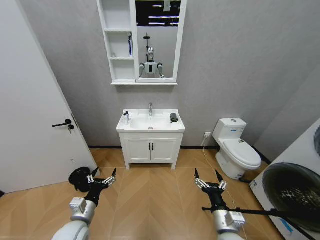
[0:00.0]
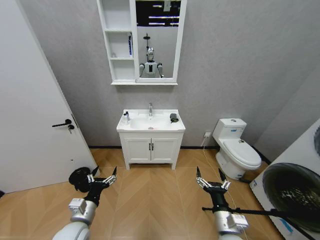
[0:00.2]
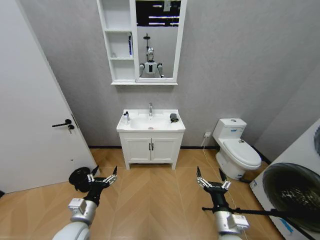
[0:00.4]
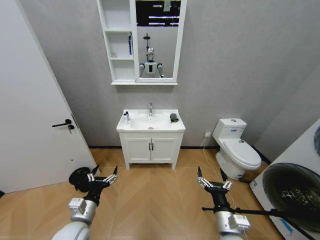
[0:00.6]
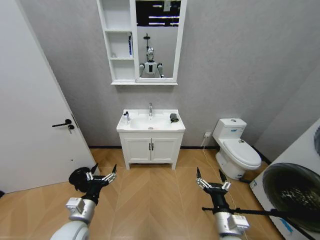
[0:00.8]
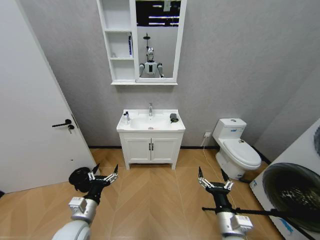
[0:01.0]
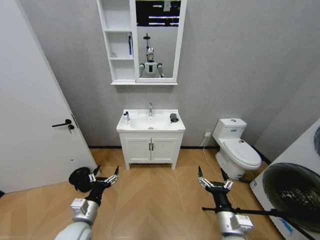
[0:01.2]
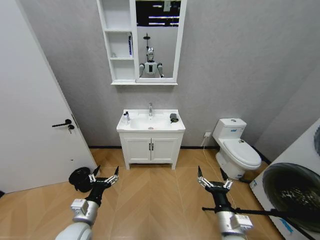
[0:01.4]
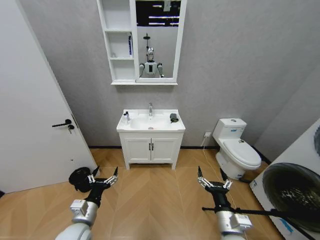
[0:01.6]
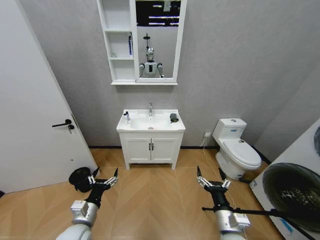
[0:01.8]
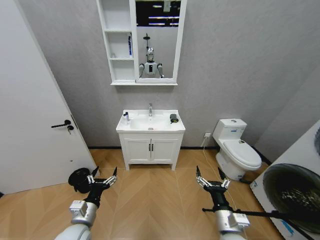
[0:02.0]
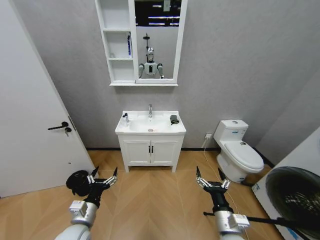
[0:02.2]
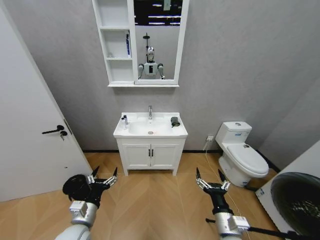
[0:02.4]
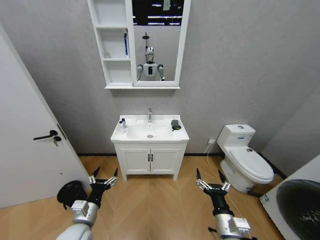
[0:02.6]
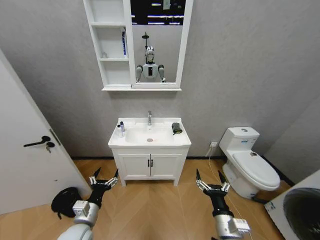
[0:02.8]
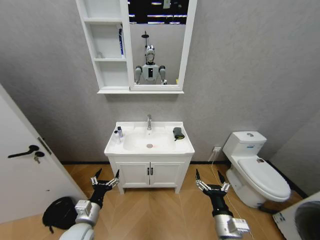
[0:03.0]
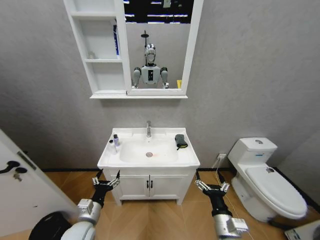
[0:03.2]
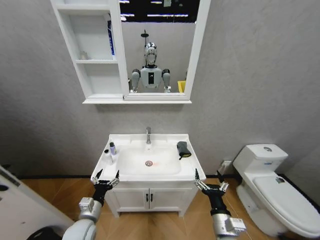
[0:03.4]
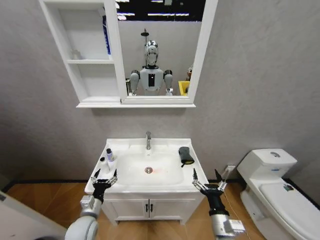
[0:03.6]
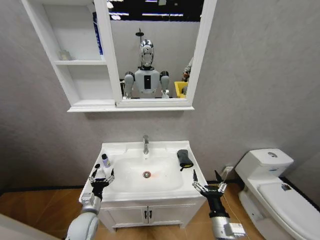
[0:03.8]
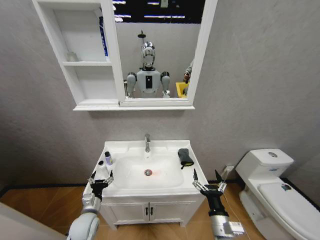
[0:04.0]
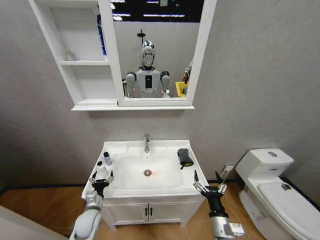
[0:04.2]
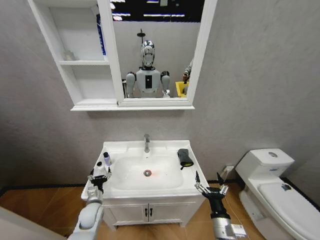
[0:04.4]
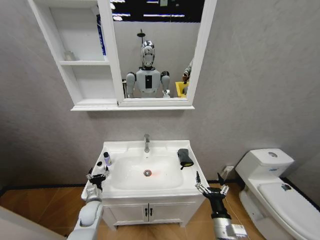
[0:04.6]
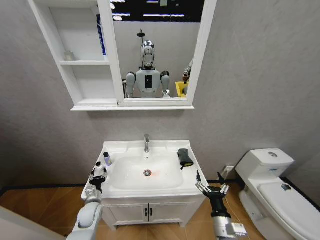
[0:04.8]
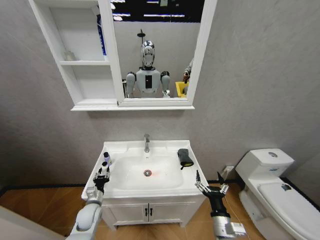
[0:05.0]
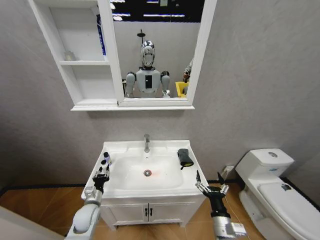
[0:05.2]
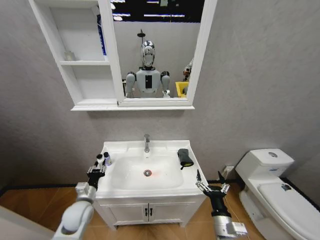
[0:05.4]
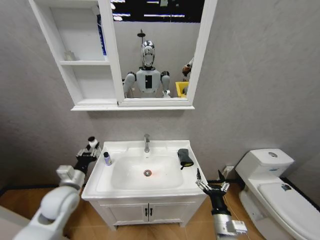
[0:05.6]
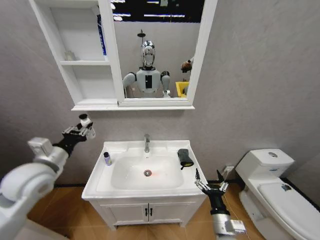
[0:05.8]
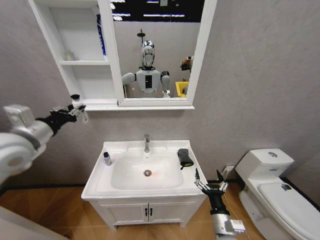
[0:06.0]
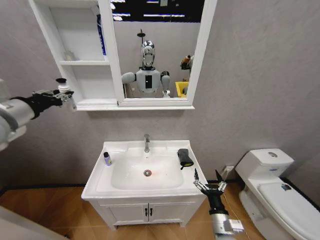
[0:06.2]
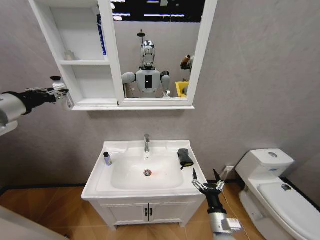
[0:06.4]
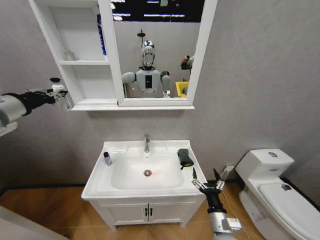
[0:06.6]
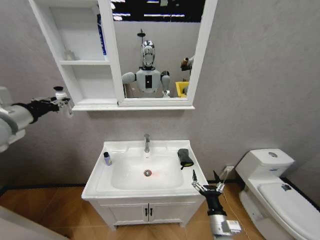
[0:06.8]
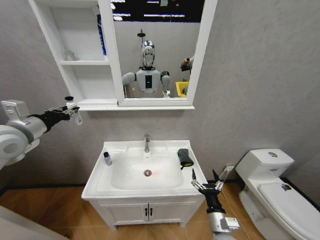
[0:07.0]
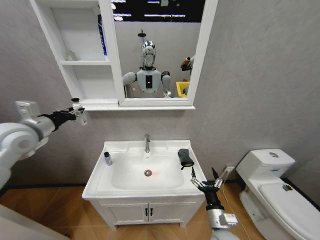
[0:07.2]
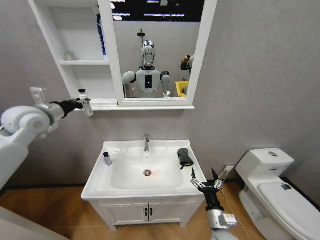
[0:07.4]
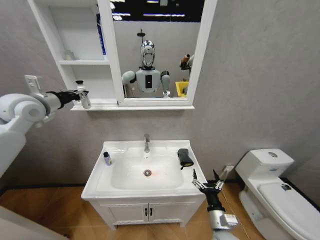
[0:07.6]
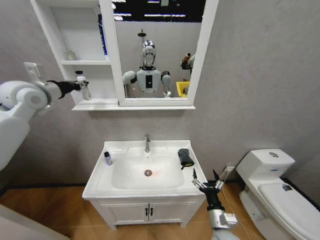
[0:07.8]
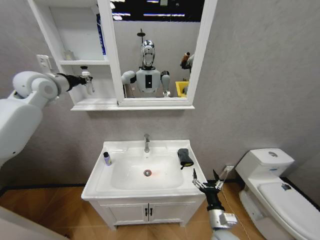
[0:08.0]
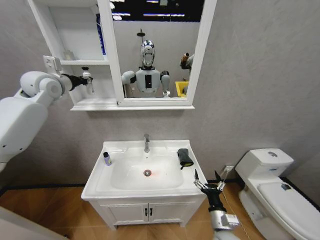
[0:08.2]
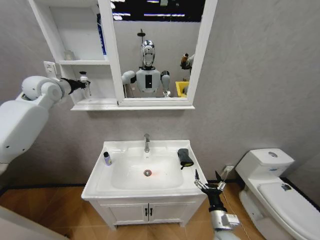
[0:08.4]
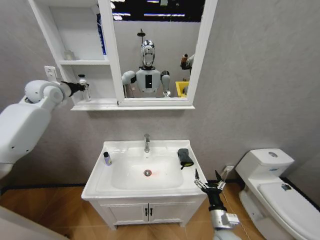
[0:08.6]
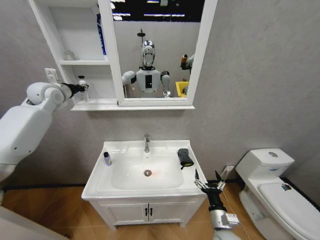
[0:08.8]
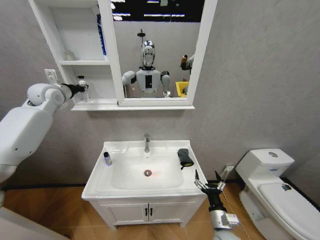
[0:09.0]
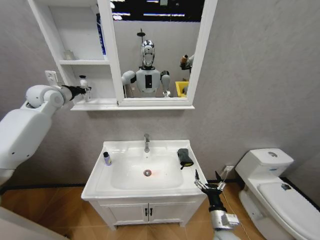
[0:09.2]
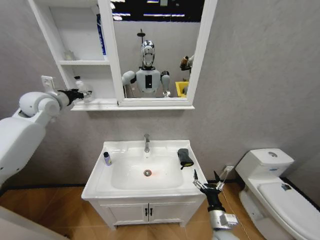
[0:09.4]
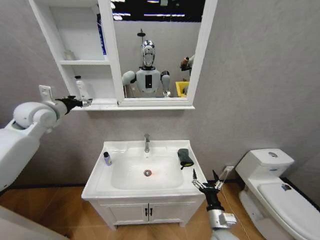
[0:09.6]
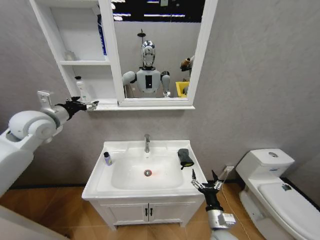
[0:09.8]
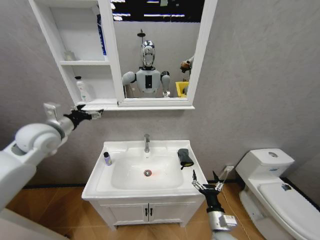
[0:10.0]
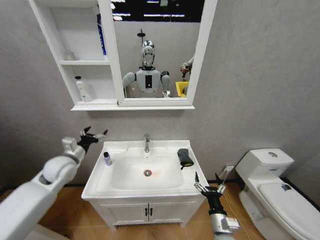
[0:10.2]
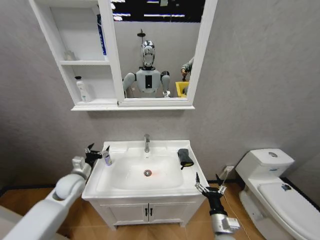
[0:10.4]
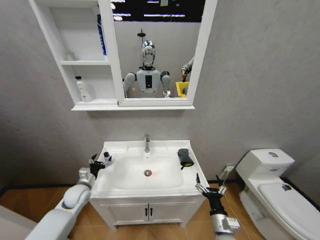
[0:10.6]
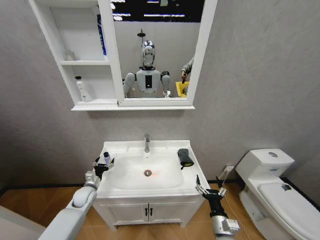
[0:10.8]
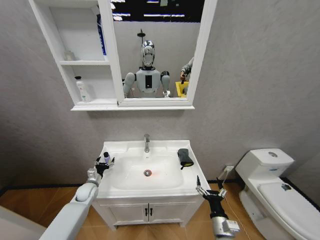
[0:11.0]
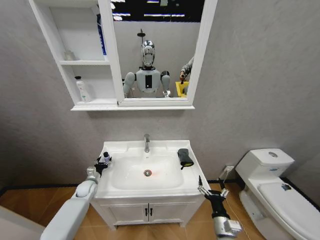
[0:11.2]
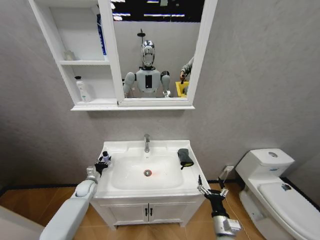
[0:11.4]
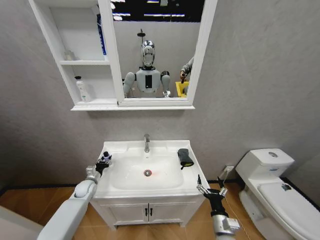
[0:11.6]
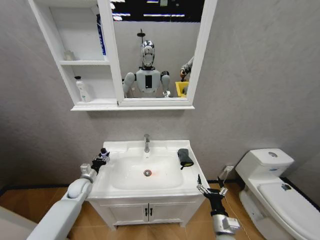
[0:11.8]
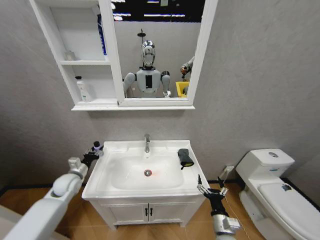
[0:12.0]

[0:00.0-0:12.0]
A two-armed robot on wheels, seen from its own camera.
Task of the whole recording: Move facial cleanser and shampoo from washbasin to cabinet, then wipe washbasin with towel.
0:03.0 to 0:04.4: The left gripper heads forward and downward, covering roughly 15 cm.
0:04.4 to 0:06.0: The left gripper moves upward, approximately 40 cm, and closes its fingers.
0:06.0 to 0:07.6: The left gripper moves forward and upward, roughly 15 cm.
0:07.6 to 0:09.0: The left gripper heads forward, covering about 10 cm.
0:09.0 to 0:10.4: The left gripper travels downward and backward by some 35 cm, and opens.
0:10.4 to 0:12.0: The left gripper reaches some 15 cm downward, then returns, and closes its fingers.

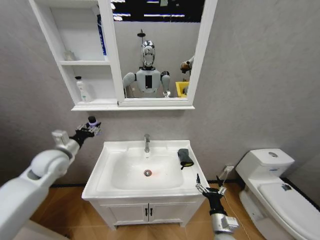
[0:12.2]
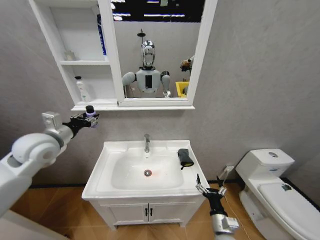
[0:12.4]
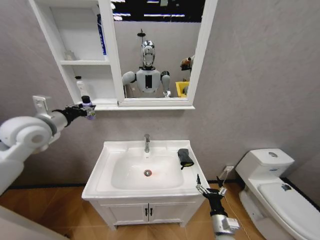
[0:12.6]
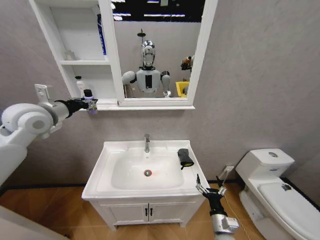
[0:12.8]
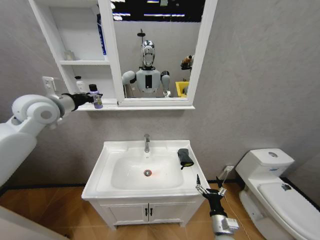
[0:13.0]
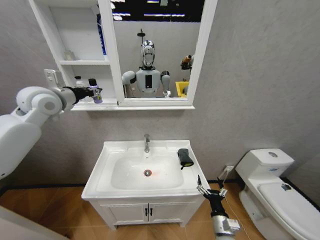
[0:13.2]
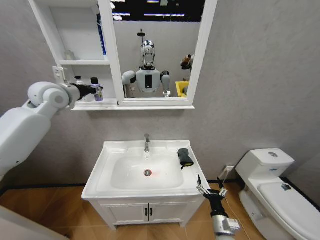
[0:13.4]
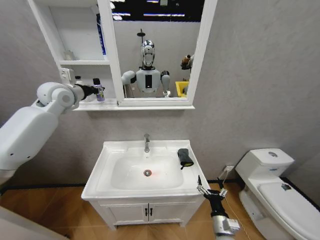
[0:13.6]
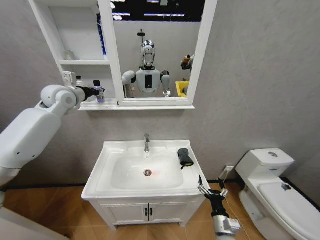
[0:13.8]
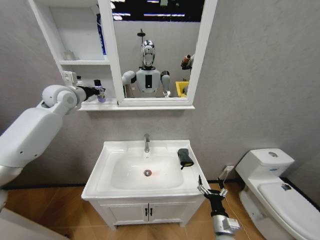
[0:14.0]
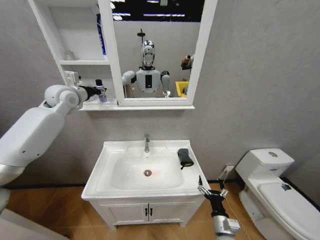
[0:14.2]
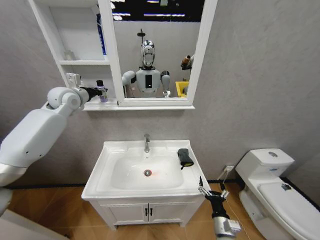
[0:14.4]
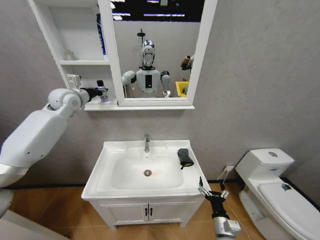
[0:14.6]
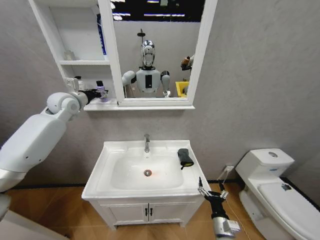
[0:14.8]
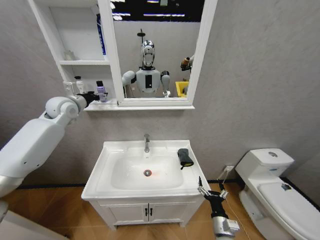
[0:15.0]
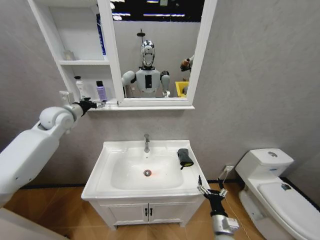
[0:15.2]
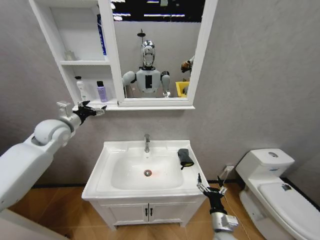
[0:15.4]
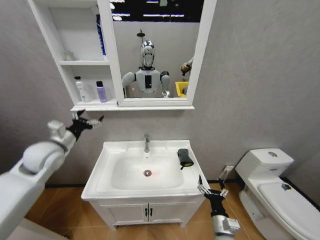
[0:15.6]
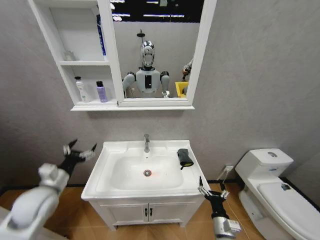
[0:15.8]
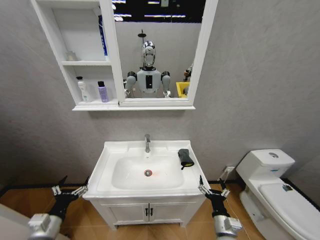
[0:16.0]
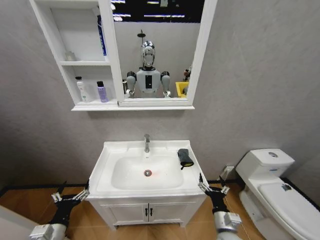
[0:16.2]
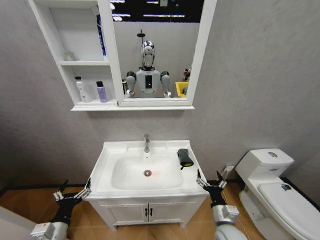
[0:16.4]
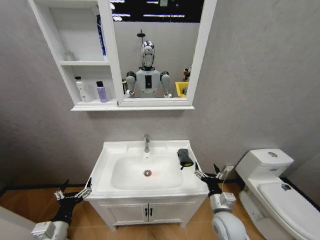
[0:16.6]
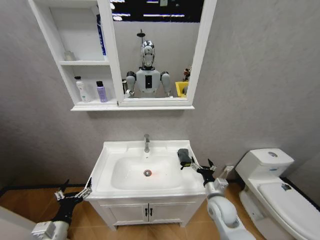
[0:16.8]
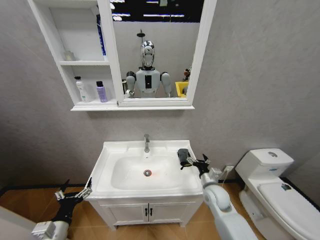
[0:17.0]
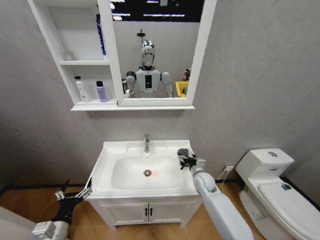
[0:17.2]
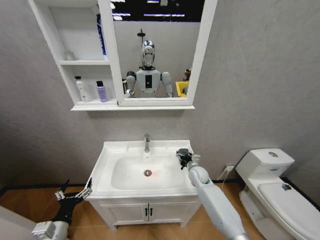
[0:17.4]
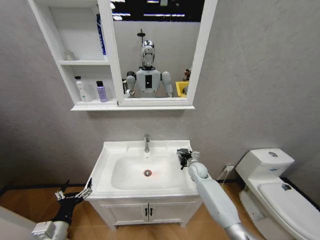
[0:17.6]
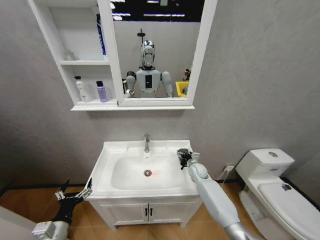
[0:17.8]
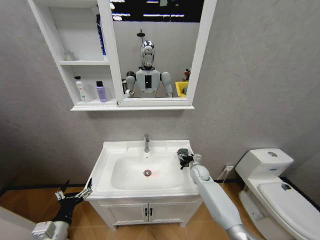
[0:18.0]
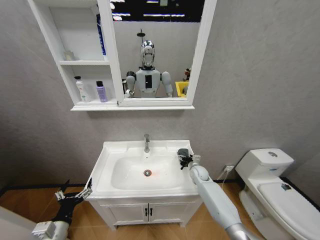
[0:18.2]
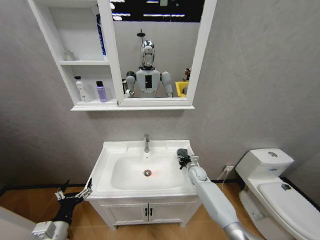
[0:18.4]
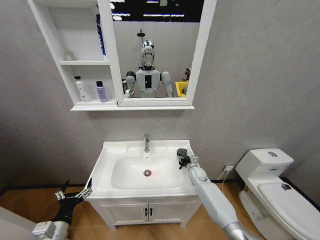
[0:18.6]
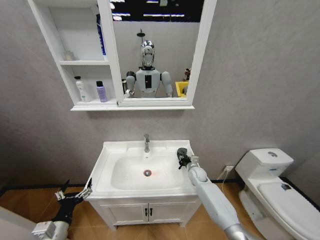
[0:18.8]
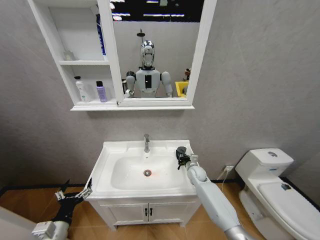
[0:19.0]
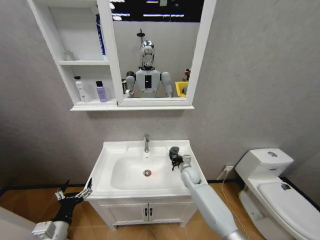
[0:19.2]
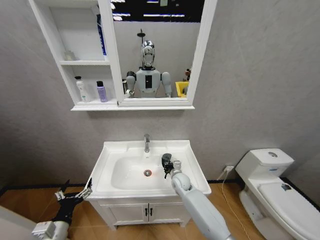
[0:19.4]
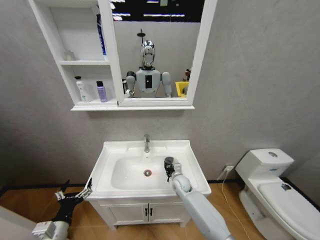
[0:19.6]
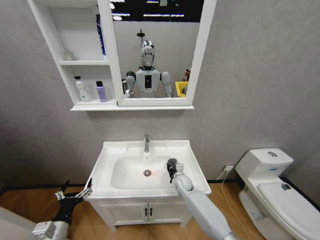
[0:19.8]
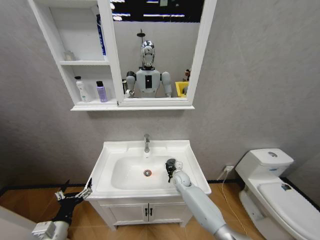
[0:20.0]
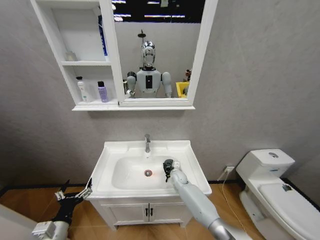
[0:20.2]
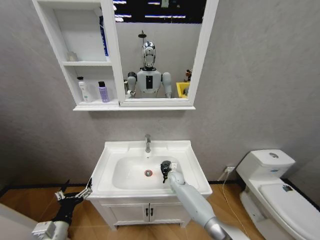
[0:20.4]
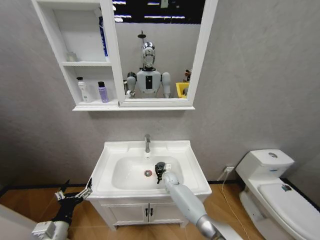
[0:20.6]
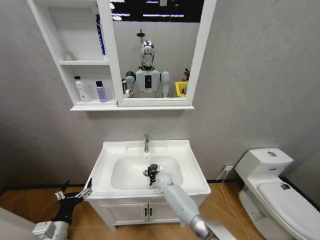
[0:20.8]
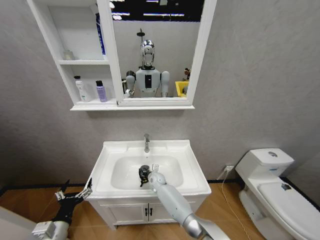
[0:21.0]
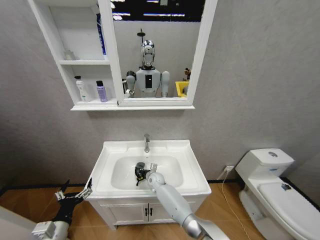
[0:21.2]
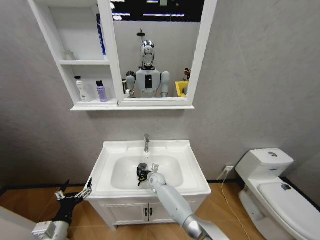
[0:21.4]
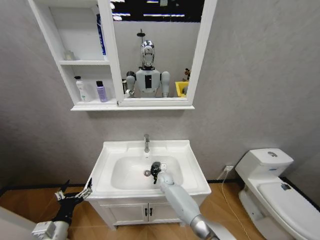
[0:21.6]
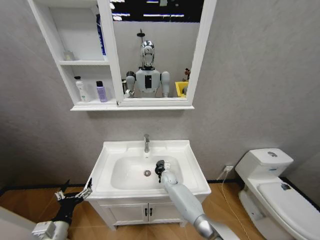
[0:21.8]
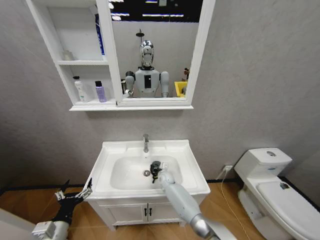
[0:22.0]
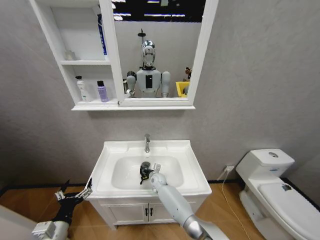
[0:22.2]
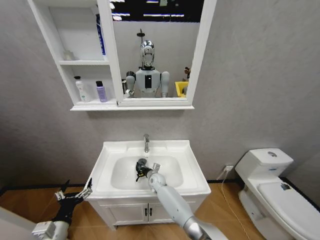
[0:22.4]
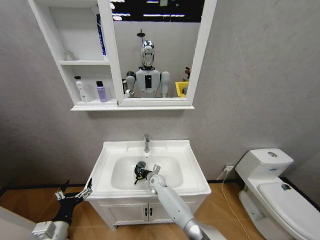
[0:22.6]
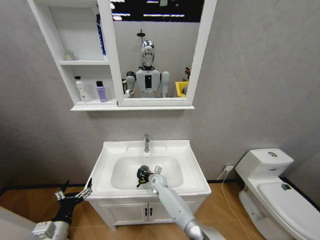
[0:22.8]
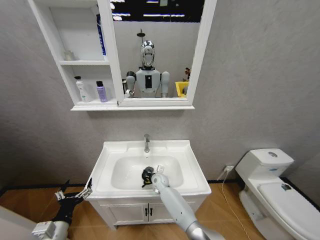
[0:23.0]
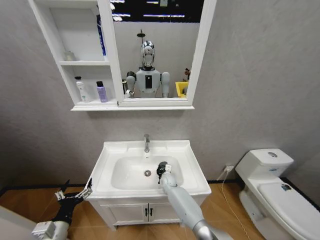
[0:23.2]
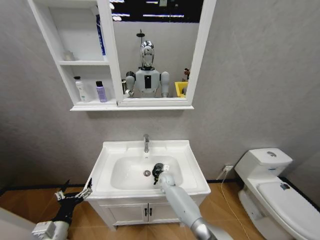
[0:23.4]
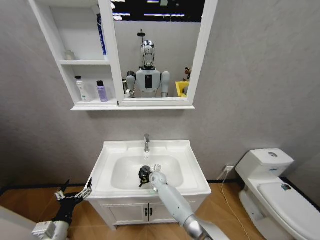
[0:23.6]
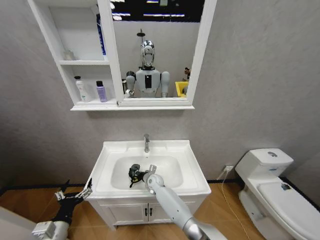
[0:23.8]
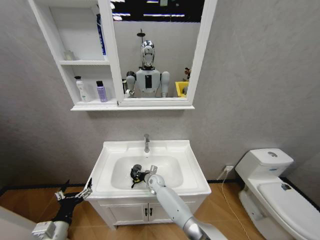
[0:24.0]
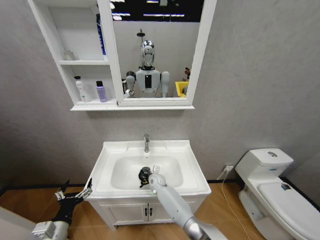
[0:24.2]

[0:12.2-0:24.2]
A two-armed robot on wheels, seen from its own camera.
Task of the whole recording: Move facial cleanser and shampoo from washbasin to cabinet, then wipe washbasin with towel.
0:12.2 to 0:13.8: The left gripper is displaced upward and forward by about 25 cm.
0:13.8 to 0:15.2: The left gripper shifts roughly 10 cm downward, and opens up.
0:15.2 to 0:16.6: The right gripper goes approximately 5 cm upward, while the left gripper goes roughly 40 cm backward and downward.
0:16.6 to 0:18.2: The right gripper heads forward, covering approximately 25 cm.
0:18.2 to 0:19.8: The right gripper is displaced to the left by some 10 cm, and closes up.
0:19.8 to 0:21.2: The right gripper moves to the left, some 15 cm.
0:21.2 to 0:22.6: The right gripper travels to the right and back again, some 10 cm each way.
0:22.6 to 0:24.2: The right gripper reaches about 5 cm to the right, then returns.
